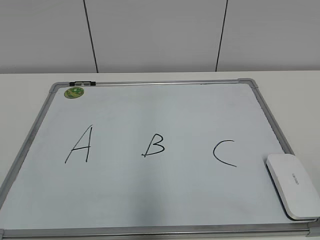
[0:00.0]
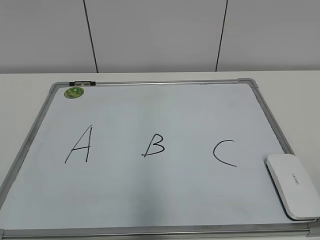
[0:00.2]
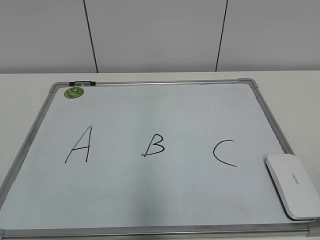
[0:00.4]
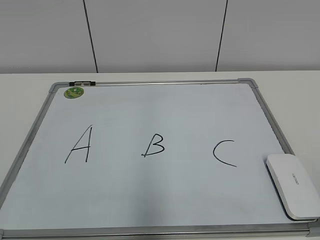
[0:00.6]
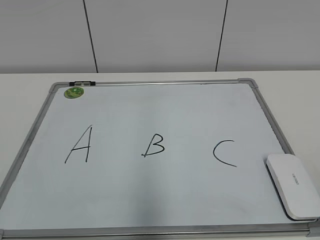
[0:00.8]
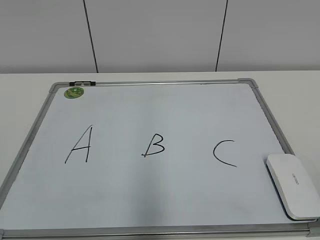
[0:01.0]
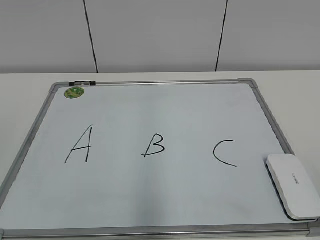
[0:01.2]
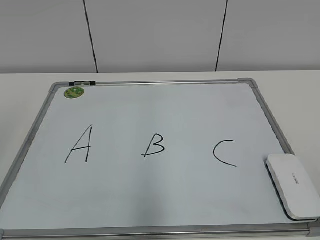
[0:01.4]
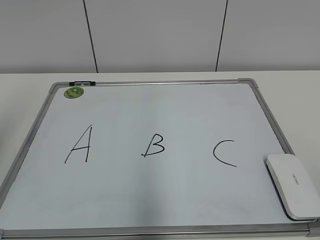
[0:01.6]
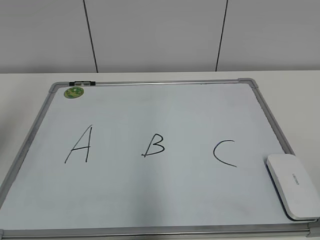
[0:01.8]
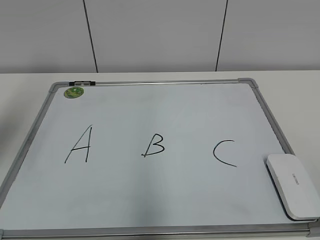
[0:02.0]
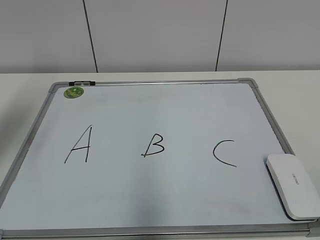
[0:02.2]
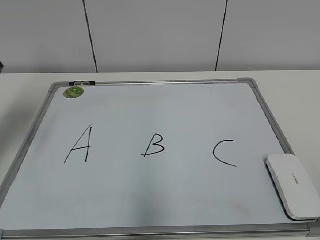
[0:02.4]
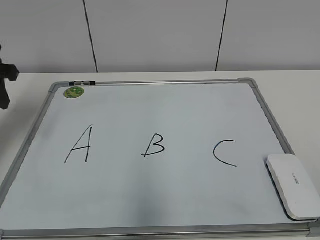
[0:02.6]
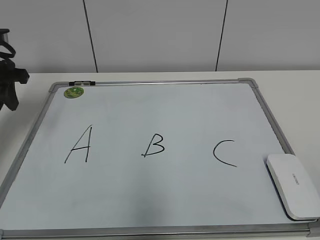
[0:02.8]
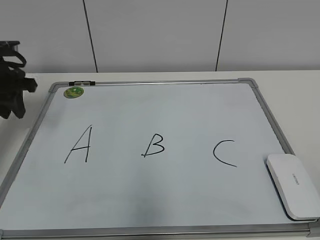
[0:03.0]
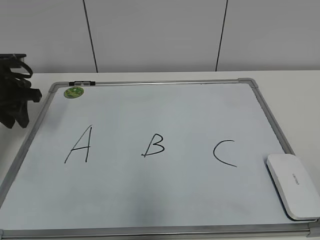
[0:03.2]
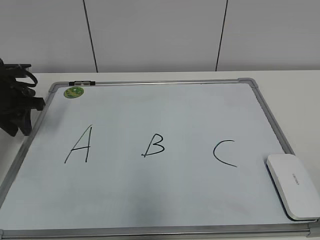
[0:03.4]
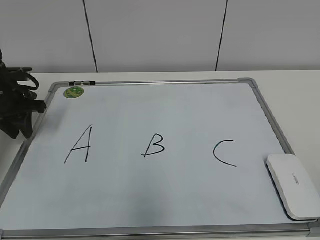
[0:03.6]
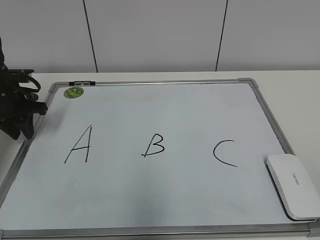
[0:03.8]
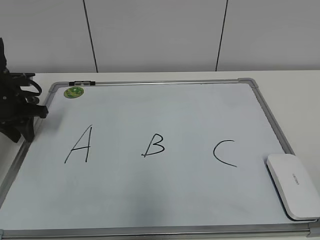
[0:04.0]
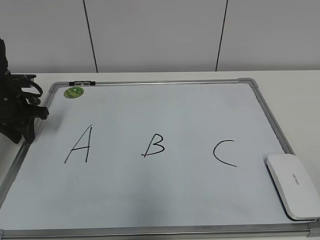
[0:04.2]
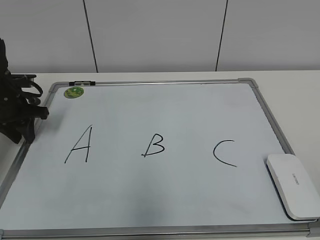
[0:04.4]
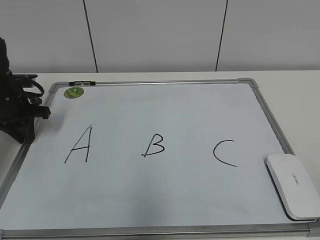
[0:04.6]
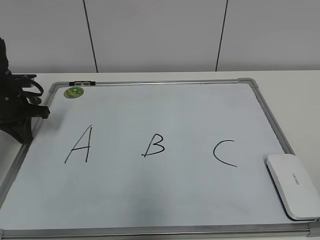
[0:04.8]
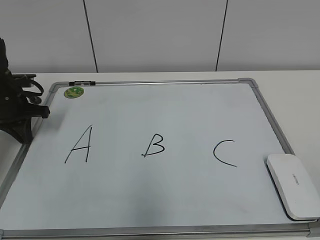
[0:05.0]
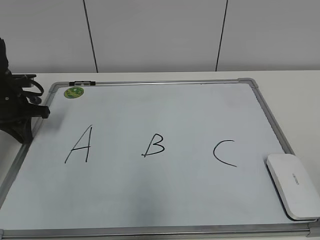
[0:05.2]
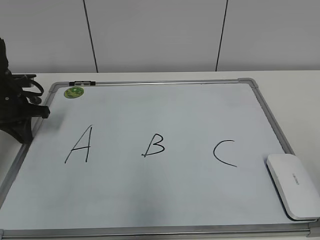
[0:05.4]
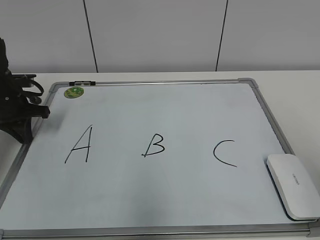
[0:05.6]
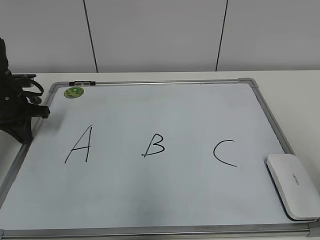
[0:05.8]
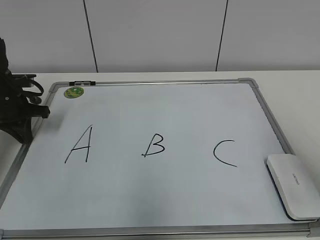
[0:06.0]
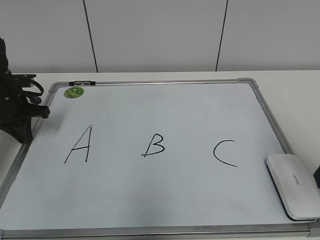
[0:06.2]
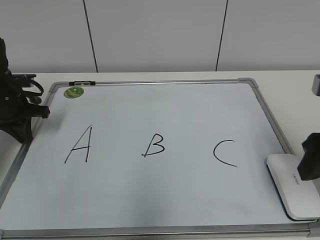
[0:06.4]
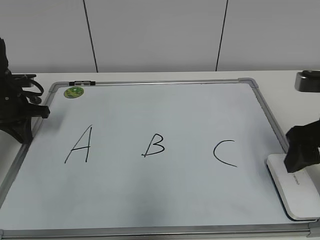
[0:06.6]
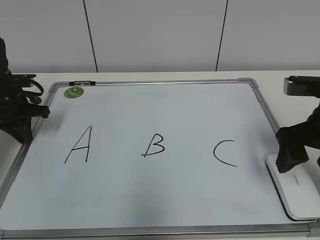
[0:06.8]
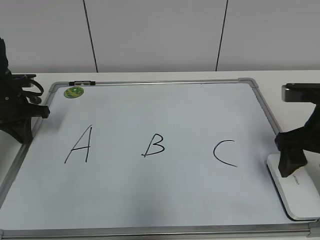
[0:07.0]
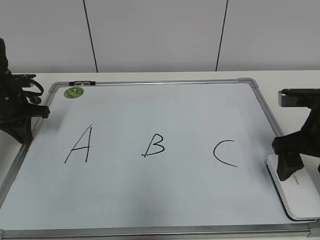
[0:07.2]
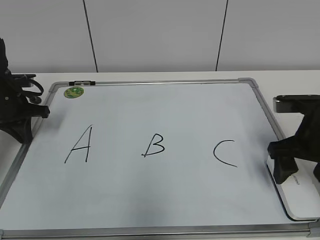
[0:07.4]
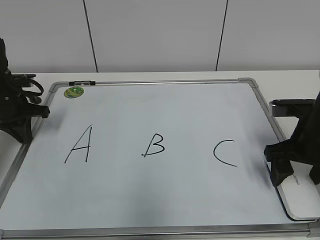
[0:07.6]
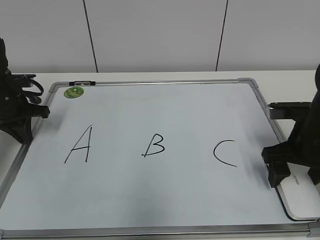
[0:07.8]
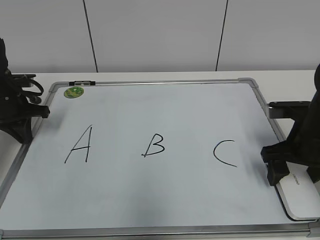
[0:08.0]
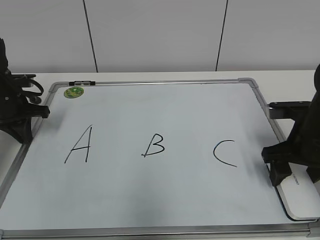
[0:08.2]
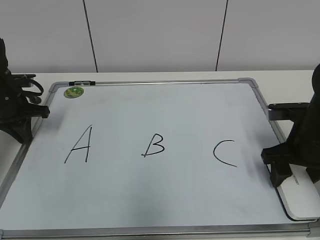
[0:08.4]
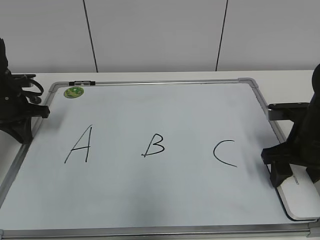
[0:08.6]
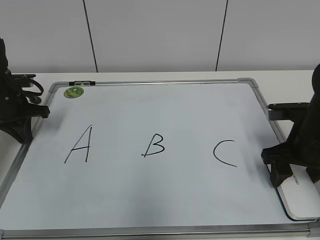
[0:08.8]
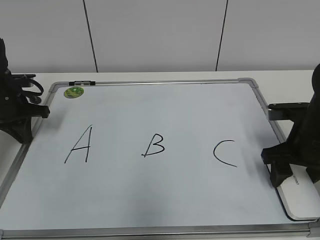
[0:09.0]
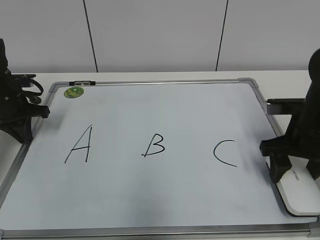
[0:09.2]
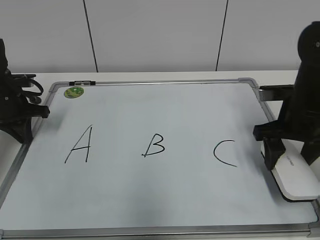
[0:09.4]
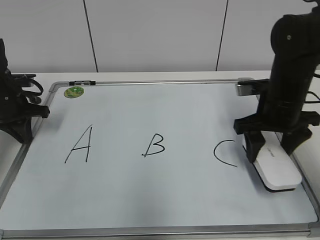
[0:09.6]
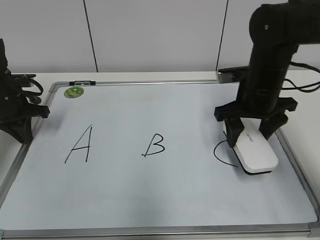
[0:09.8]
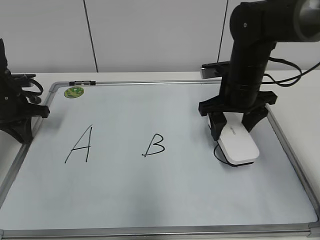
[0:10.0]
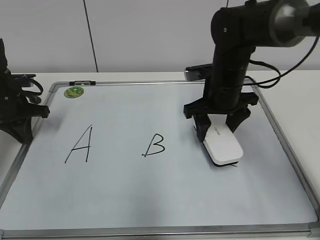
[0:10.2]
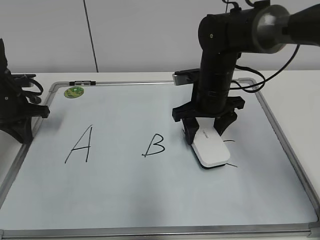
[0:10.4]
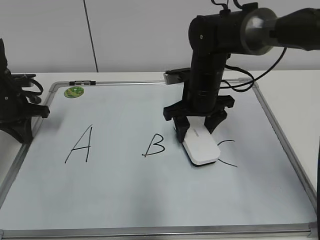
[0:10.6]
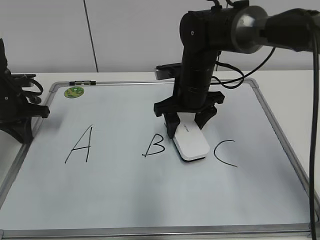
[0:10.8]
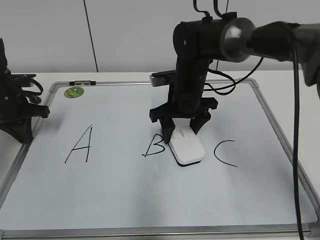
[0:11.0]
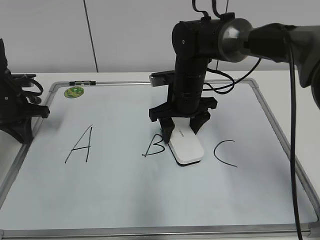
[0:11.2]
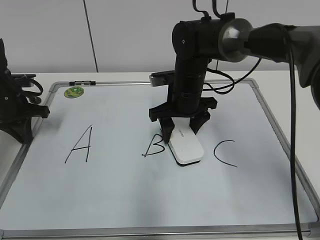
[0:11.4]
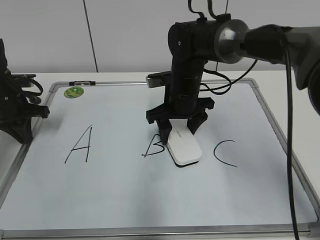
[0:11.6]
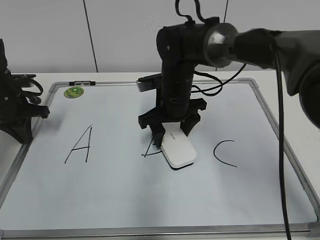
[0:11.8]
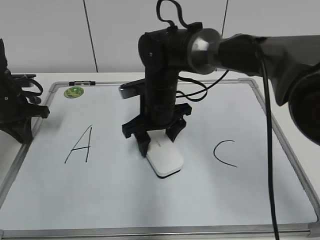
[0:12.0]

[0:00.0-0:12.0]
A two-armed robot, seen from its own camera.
Task of the whole recording: pick up the eraser on the blackboard and erase the letter "B".
Step, 0:00.0 to 0:05.8: Hold the drawing board steady with your left hand.
Step, 0:06.0 to 0:08.4: Grab the eraser with your right hand.
0:01.6 to 0:03.0: The left gripper travels forward and downward by roughly 30 cm.
0:03.0 to 0:04.4: The left gripper shifts approximately 5 cm downward.
0:04.4 to 0:06.0: The right gripper shifts some 15 cm forward.
0:06.0 to 0:07.6: The right gripper goes about 15 cm forward and downward, and opens up.
0:07.6 to 0:09.0: The right gripper closes its fingers.
0:09.0 to 0:10.4: The right gripper travels to the left and forward by approximately 15 cm.
0:10.4 to 0:12.0: The right gripper moves to the left, roughly 10 cm.

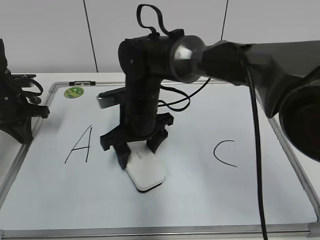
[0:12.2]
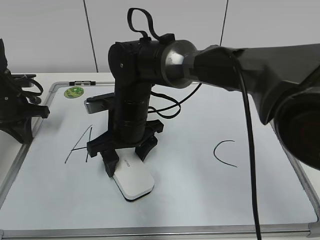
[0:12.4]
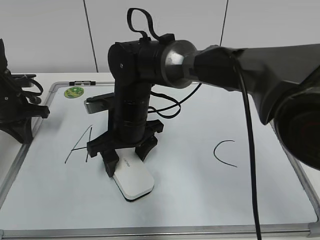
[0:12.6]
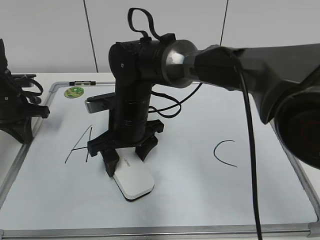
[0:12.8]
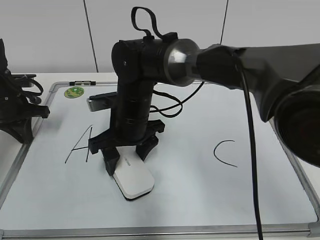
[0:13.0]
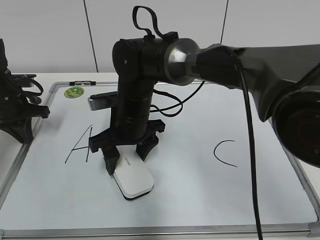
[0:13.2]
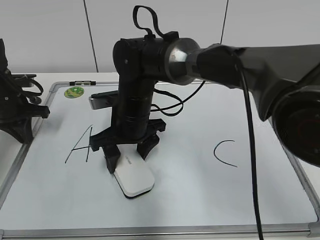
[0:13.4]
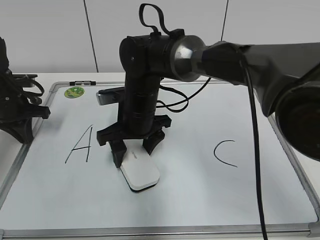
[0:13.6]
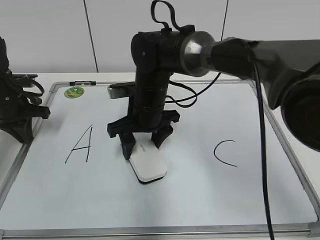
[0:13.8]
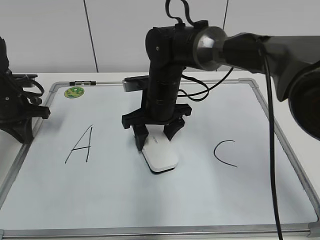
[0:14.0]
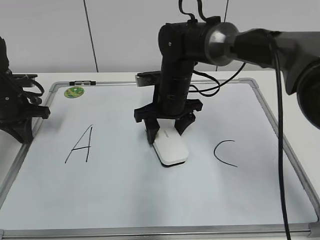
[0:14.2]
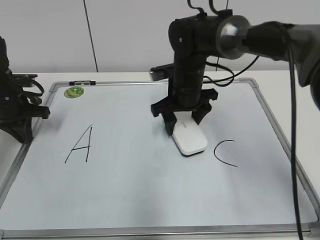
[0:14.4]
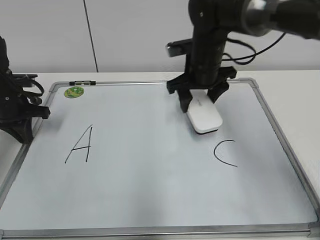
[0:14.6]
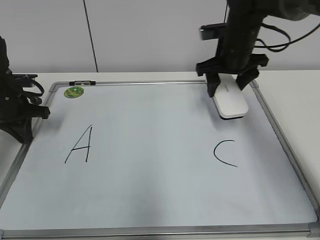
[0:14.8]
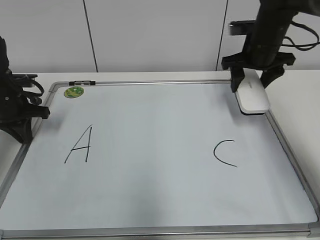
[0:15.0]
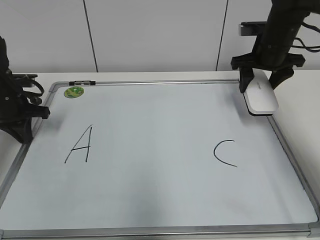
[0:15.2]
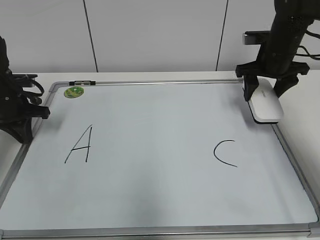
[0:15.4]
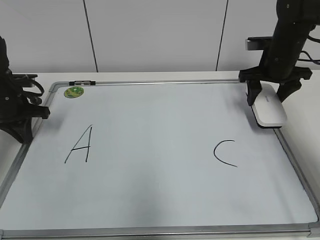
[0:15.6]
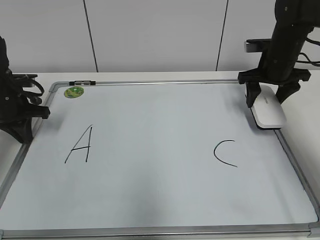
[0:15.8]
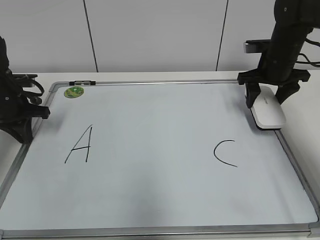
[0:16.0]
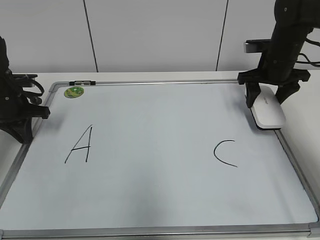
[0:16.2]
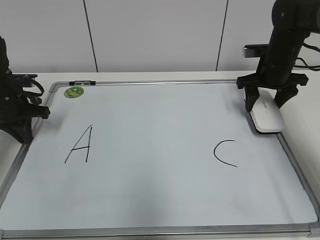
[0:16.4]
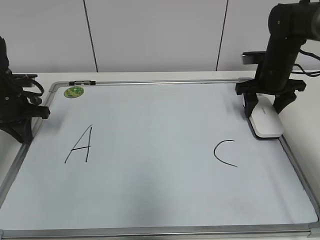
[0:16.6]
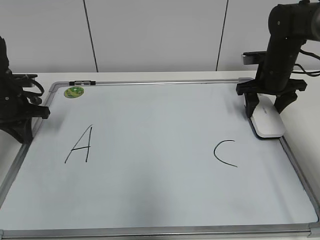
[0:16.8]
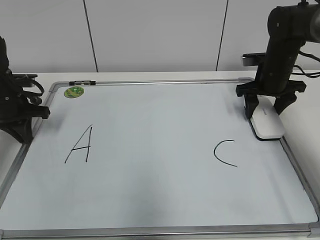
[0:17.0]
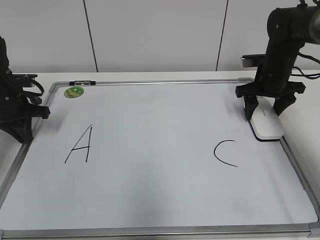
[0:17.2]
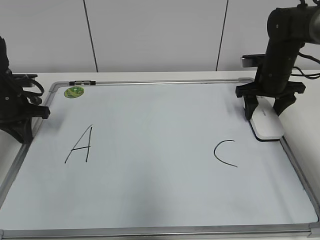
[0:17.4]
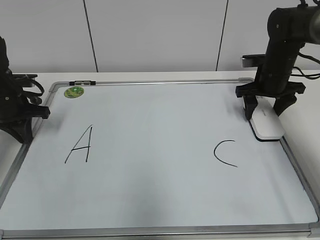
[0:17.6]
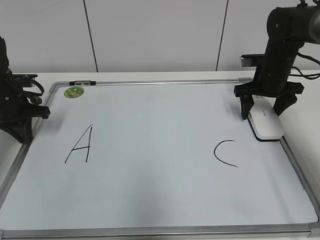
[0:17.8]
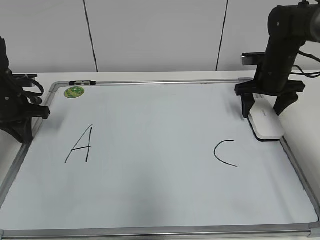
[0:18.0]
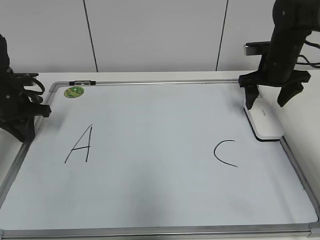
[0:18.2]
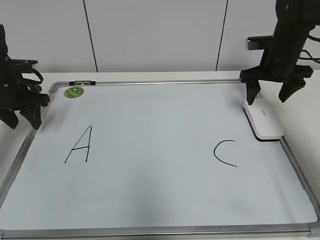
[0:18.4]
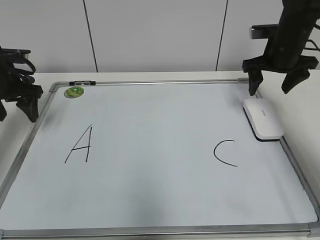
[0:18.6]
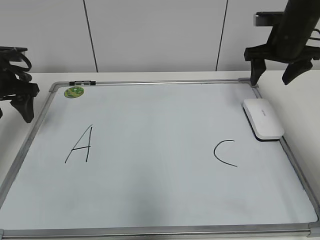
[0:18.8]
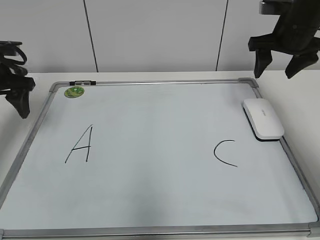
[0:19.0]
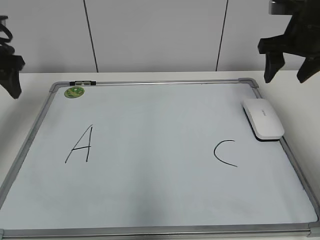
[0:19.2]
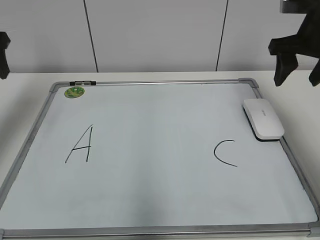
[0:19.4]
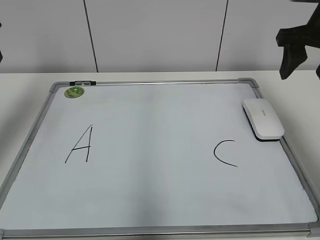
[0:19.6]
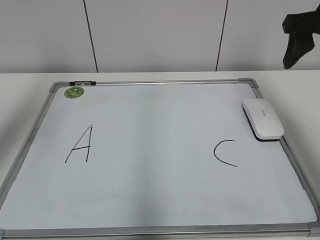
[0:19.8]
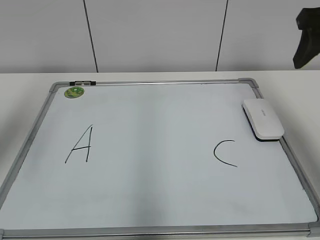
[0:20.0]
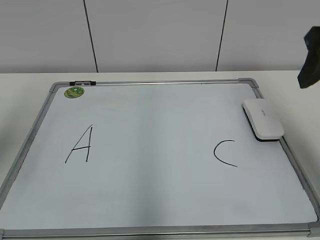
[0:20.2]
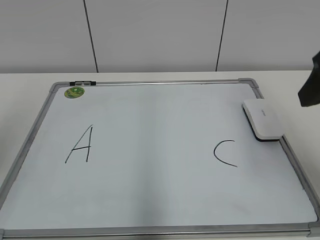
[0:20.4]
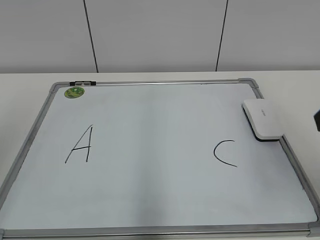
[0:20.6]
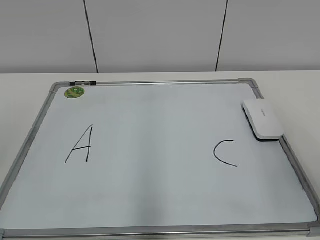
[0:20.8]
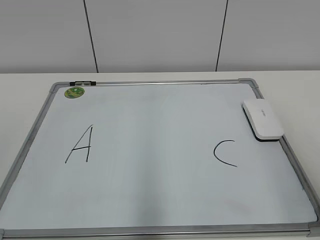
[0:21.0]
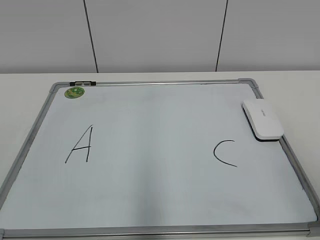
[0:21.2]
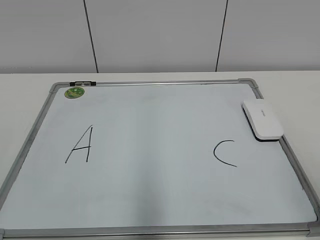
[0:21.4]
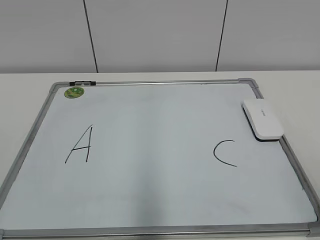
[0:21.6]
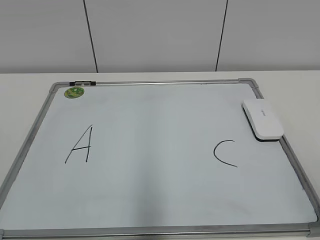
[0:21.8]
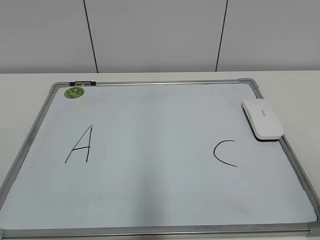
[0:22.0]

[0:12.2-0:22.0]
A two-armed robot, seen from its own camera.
Task of the whole recording: pick up the eraser on the blackboard and erase the letter "B".
Step, 0:12.2 to 0:14.2: Erase the letter B with your right hand.
Step, 0:14.4 to 0:16.8: Put down the eraser with your right hand.
0:12.2 to 0:13.6: The grippers make only small movements.
0:13.6 to 0:15.0: The right gripper shifts about 25 cm to the right and forward.
0:15.0 to 0:16.4: The right gripper ends up approximately 5 cm from where it was.
0:16.4 to 0:17.8: The right gripper opens its fingers.
0:17.8 to 0:19.2: The right gripper heads upward and backward, covering about 15 cm, and closes its fingers; the left gripper goes approximately 15 cm upward, and opens up.
0:19.2 to 0:20.6: Both grippers travel together backward, about 25 cm.
0:20.6 to 0:22.0: The right gripper shifts roughly 15 cm backward and downward.
